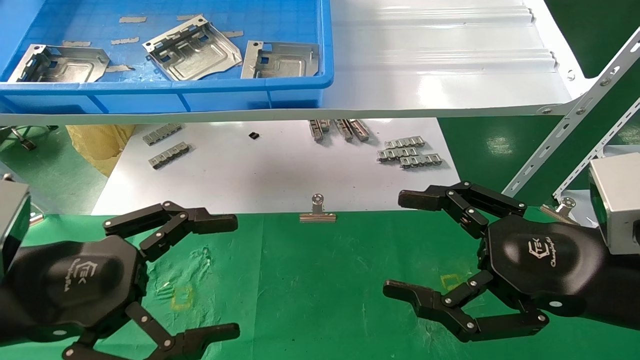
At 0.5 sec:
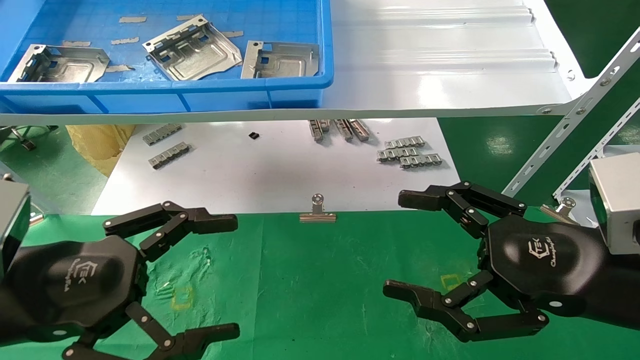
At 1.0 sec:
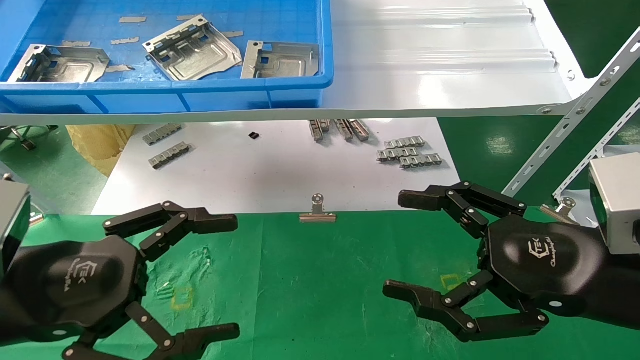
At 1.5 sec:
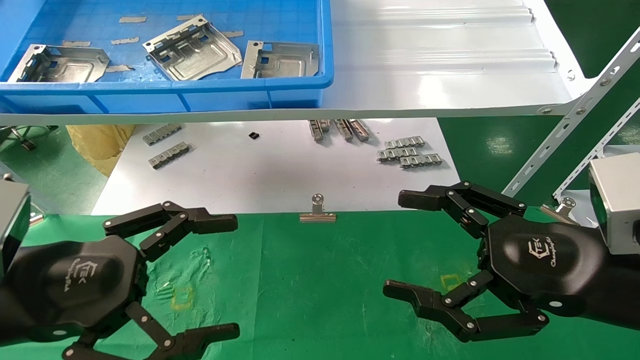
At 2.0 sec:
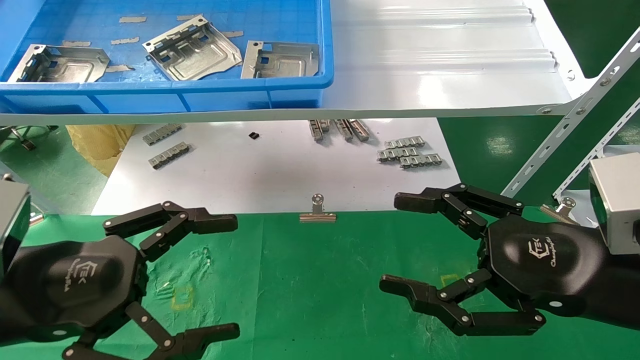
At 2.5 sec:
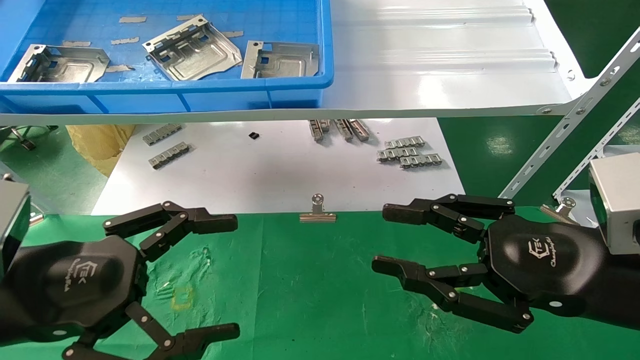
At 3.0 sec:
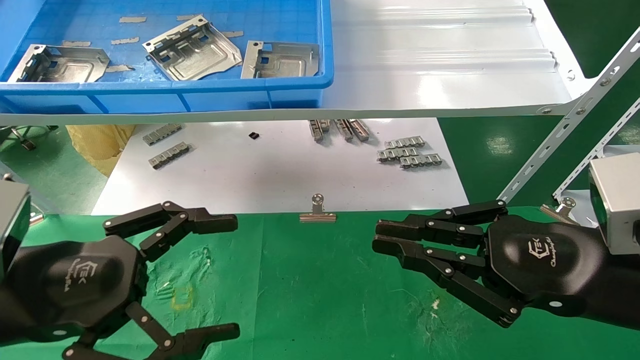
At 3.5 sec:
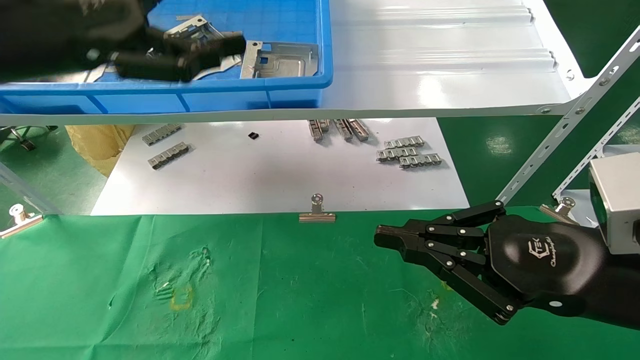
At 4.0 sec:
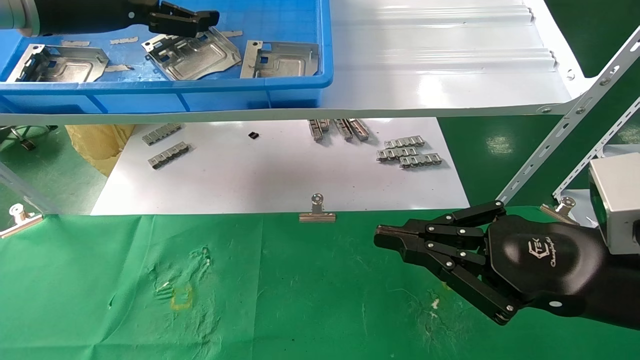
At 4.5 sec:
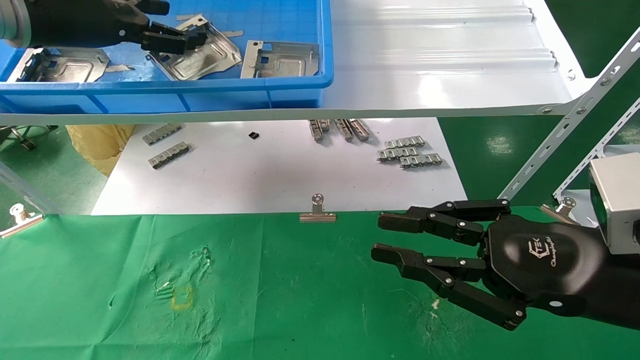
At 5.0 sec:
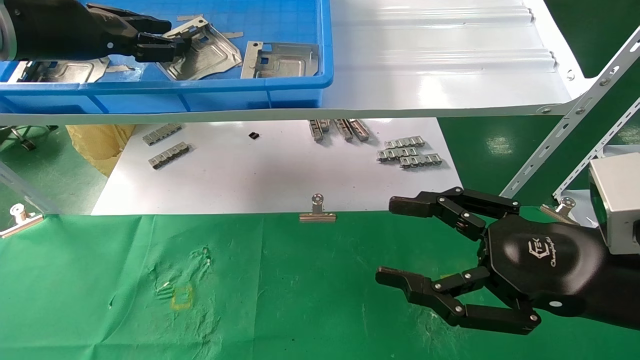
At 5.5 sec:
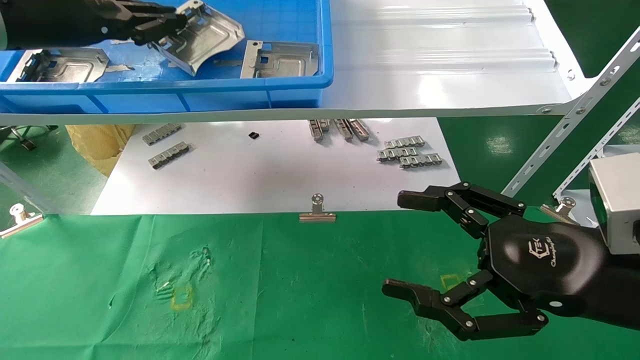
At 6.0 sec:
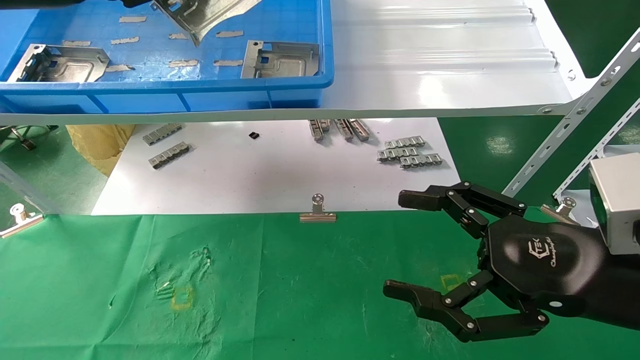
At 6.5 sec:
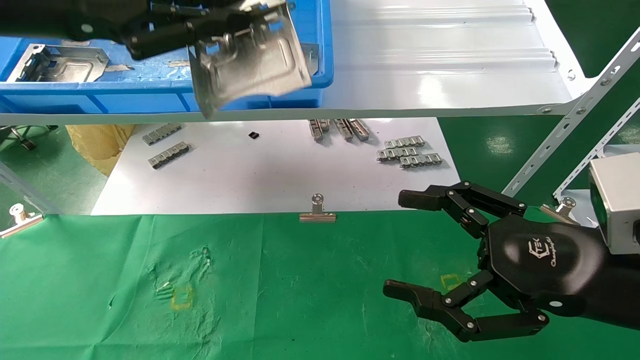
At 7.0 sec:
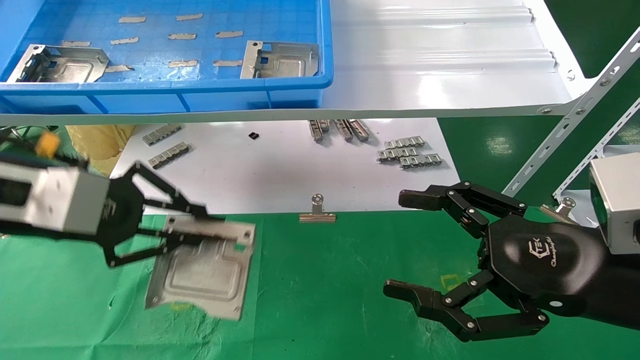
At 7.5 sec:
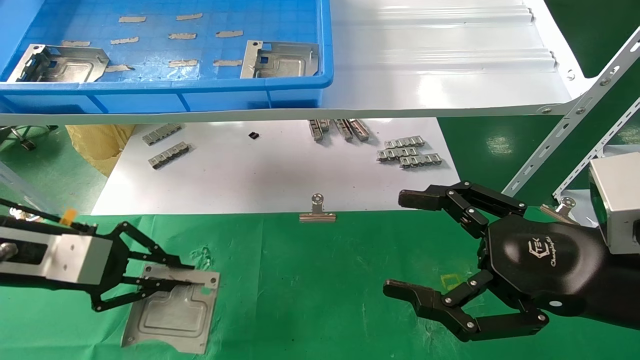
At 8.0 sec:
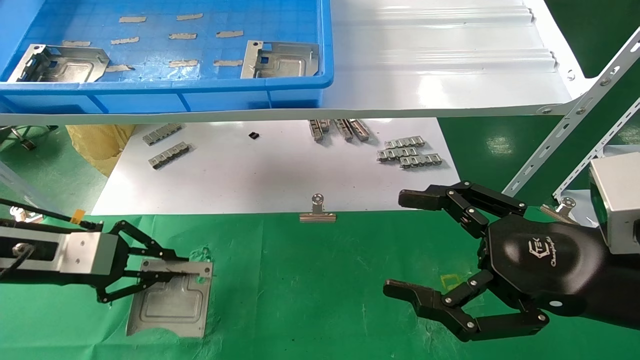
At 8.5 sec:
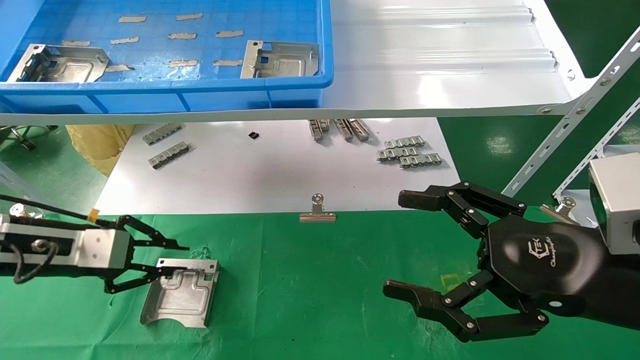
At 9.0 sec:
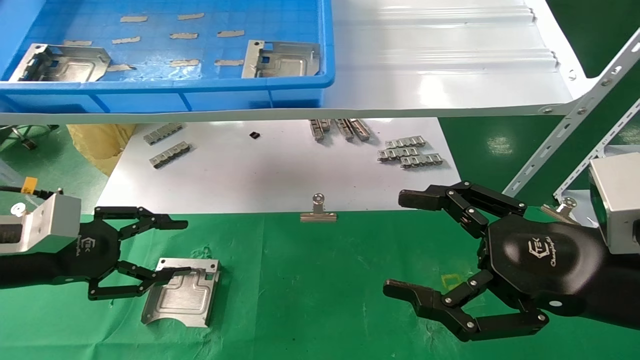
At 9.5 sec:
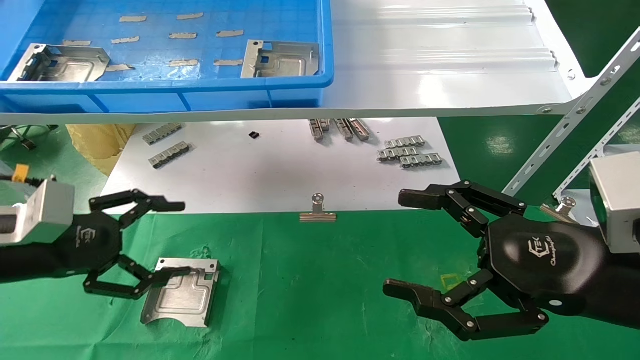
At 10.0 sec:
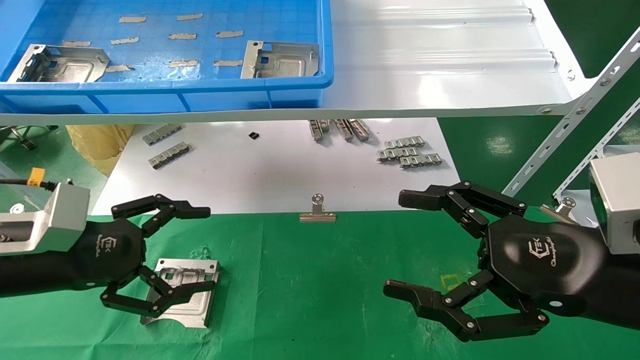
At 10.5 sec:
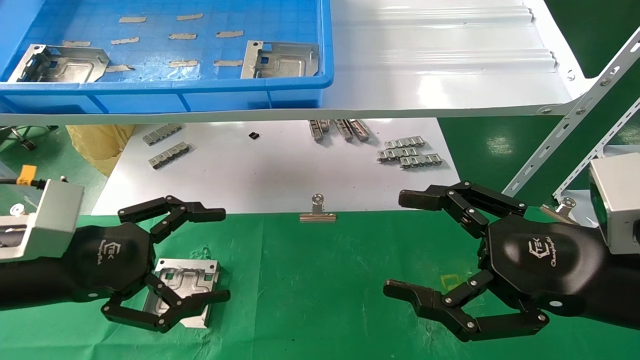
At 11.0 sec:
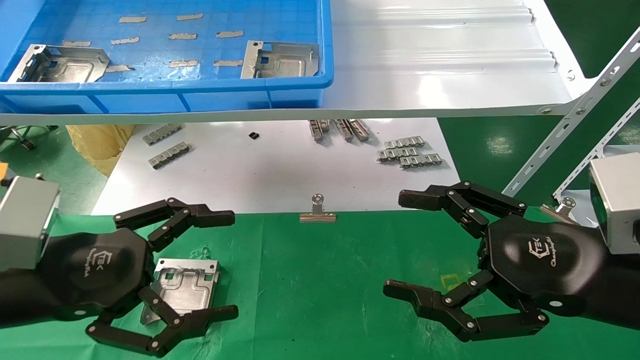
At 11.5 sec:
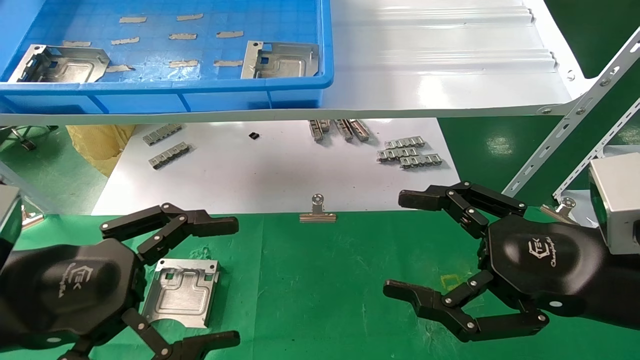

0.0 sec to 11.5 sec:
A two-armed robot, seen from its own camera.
Task of the whole recording: use the mechanical arm to pick up the parts and place them on the table.
Step, 3.5 sec to 5.5 sec: Pick up the hard drive bracket from the feeding area.
Step, 6.0 sec to 8.5 sec: Place the hard drive bracket into the box.
0.0 sec to 2.0 sec: The two grippers keep their place.
2.0 sec to 4.0 sec: The left gripper is displaced upward and forward by approximately 30 cm. The right gripper closes up.
4.0 sec to 6.0 sec: The left gripper travels backward by roughly 5 cm, and closes up. Meanwhile the right gripper opens its fingers.
6.0 sec to 7.5 sec: The left gripper travels downward by approximately 25 cm.
7.5 sec to 9.5 sec: The left gripper opens its fingers.
9.5 sec to 11.5 sec: The left gripper goes some 15 cm backward and to the right.
